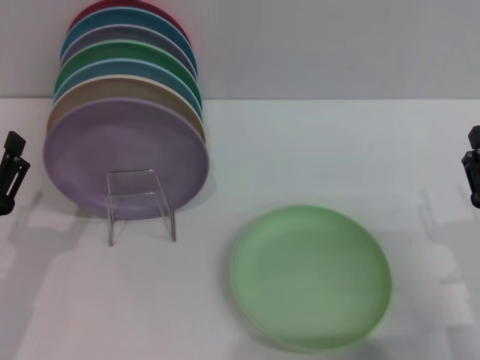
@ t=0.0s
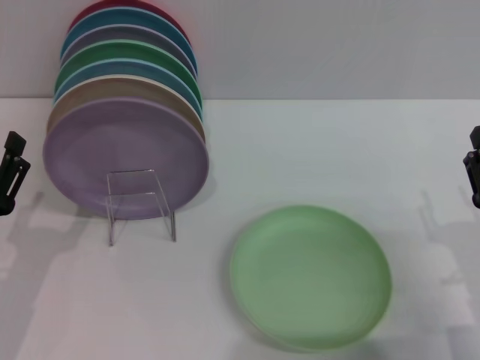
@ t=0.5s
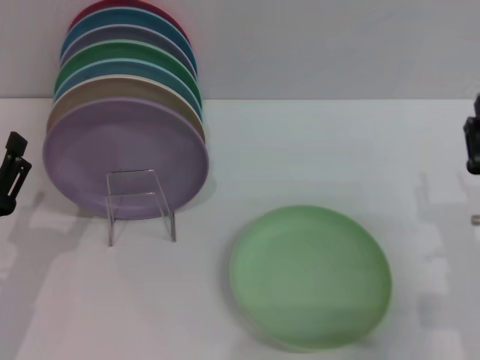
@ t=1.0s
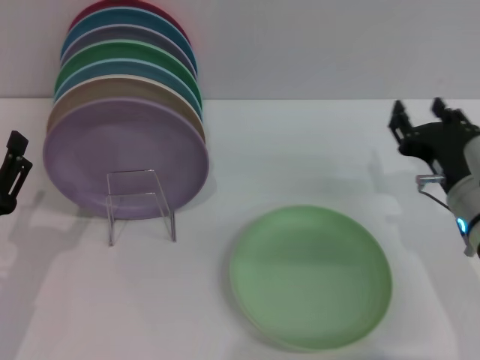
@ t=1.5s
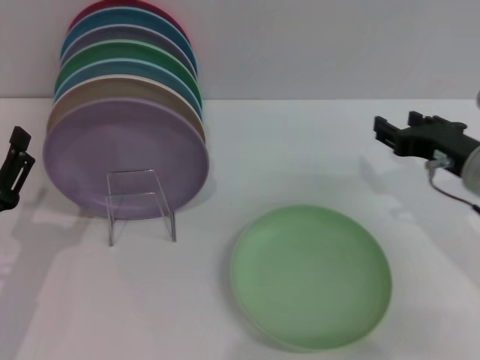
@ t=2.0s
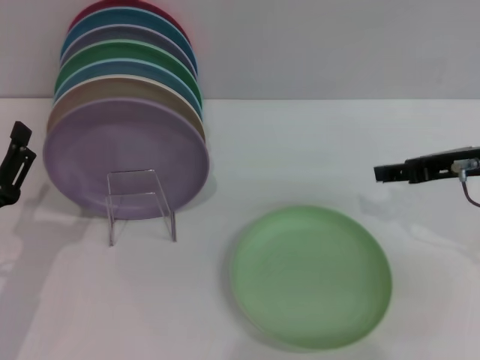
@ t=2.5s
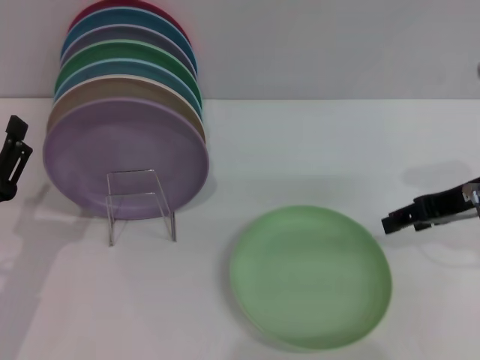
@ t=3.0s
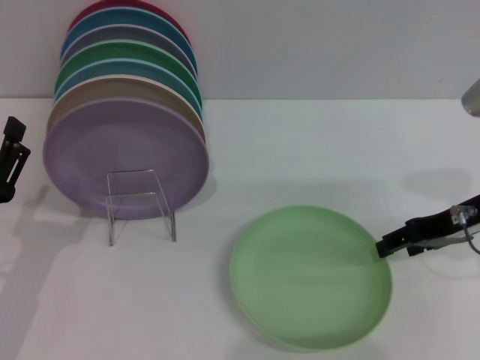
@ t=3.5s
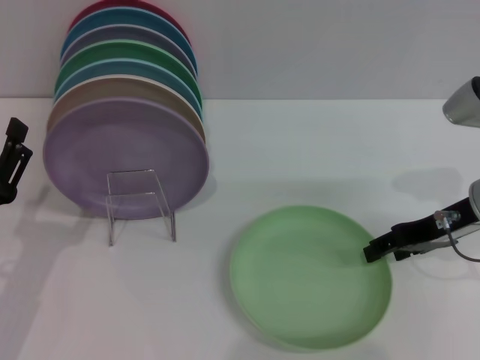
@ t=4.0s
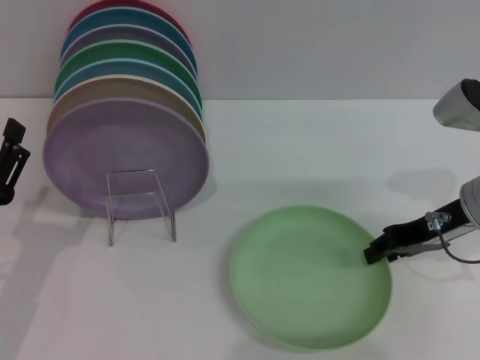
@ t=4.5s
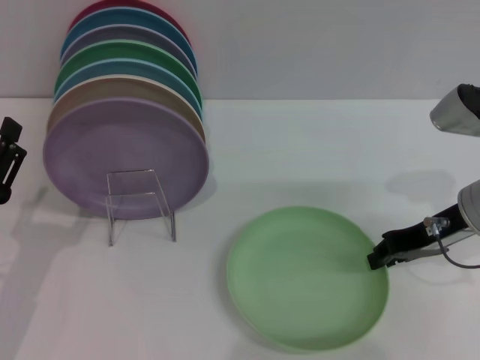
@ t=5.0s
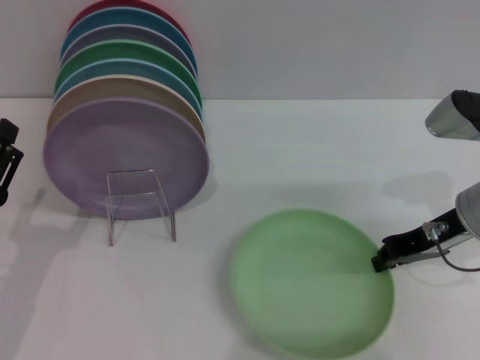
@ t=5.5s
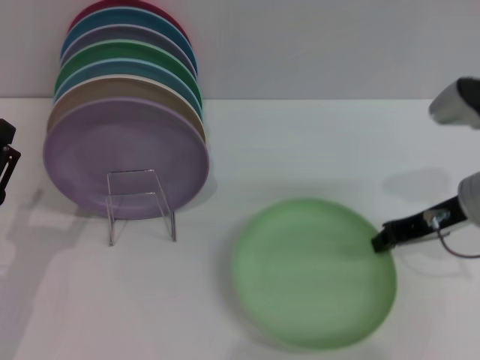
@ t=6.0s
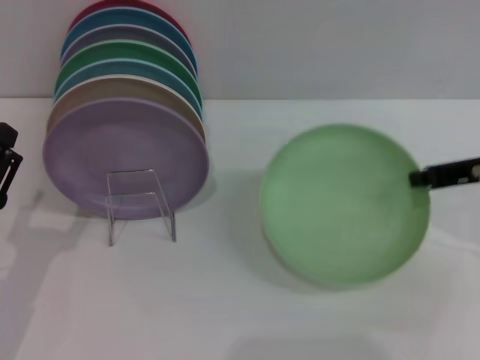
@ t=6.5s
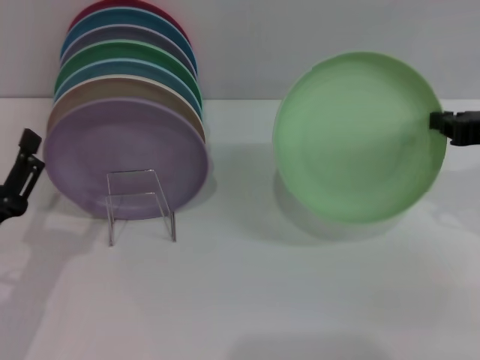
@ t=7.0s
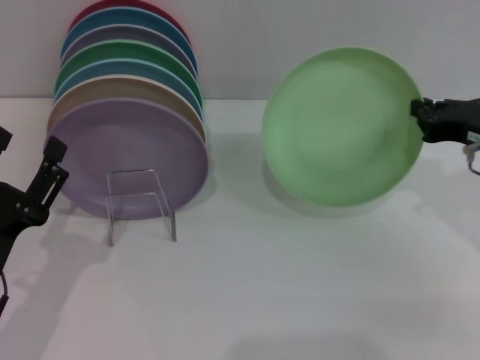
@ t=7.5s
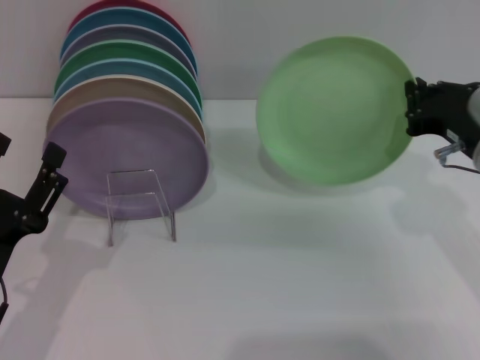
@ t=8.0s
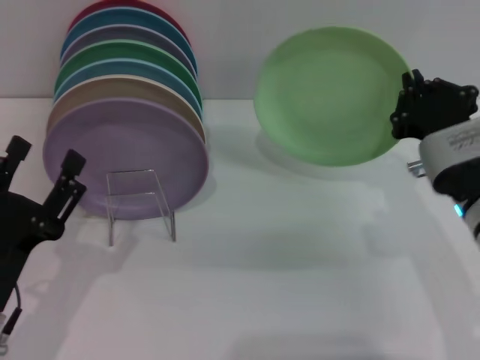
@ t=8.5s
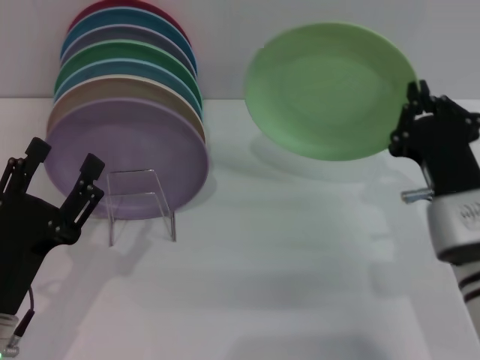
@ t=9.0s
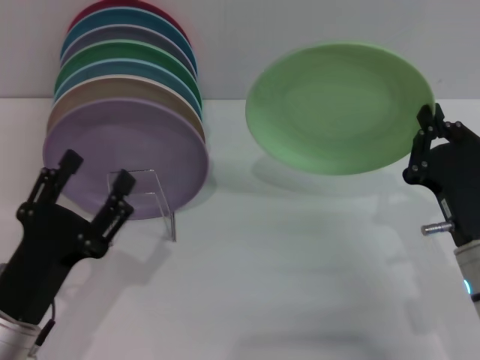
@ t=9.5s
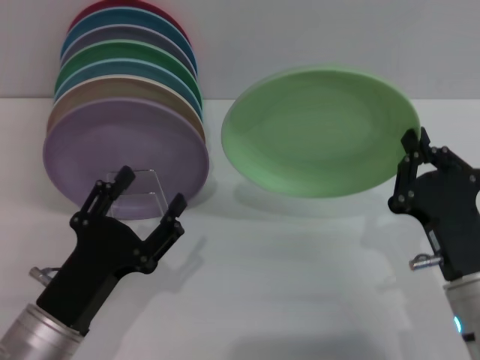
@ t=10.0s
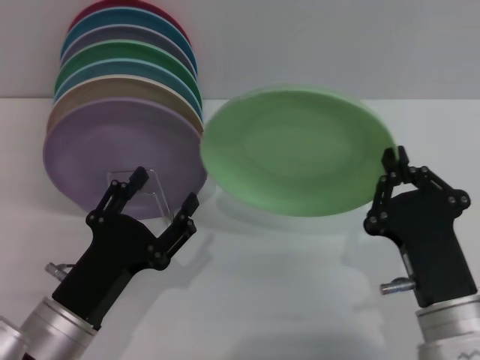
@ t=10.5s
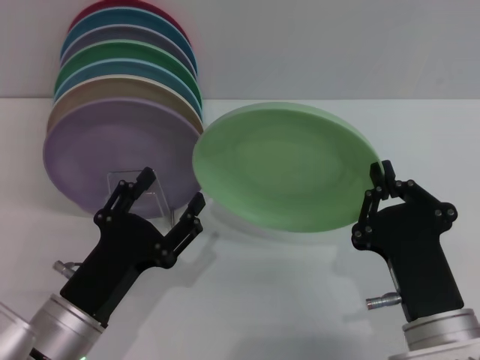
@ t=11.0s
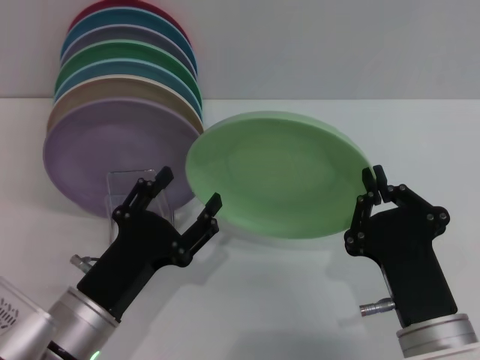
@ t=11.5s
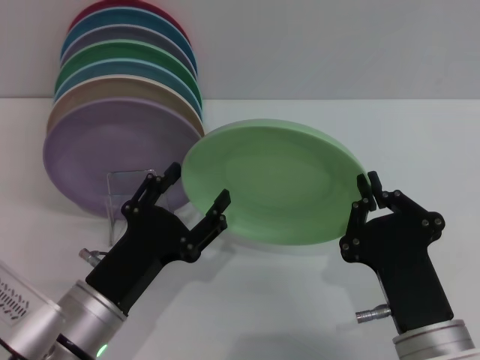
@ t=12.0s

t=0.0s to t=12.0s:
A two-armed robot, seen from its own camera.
Task of the whole recording: Grip the plate with one hand, pass it to the other, then set it on the shelf.
Step, t=0.0s to t=7.0s: Pick up the plate with the right gripper.
t=0.0s to t=2.0s: The right gripper goes approximately 15 cm forward and upward.
t=4.0s to t=6.0s: The right gripper closes.
t=8.0s to t=10.0s: The left gripper goes some 5 cm to the right, while the right gripper travels backward and downward by about 15 cm.
t=10.0s to t=12.0s: The right gripper goes about 10 cm to the left and backward.

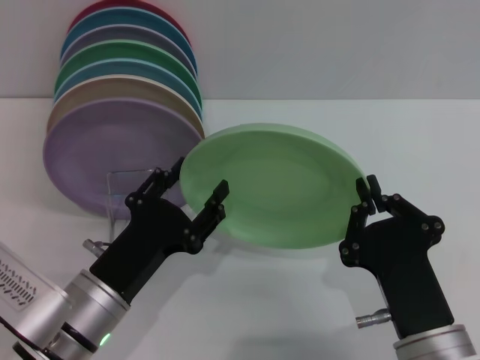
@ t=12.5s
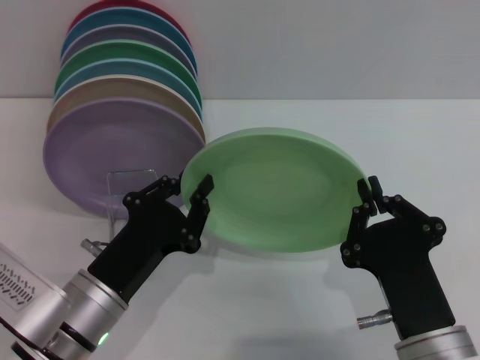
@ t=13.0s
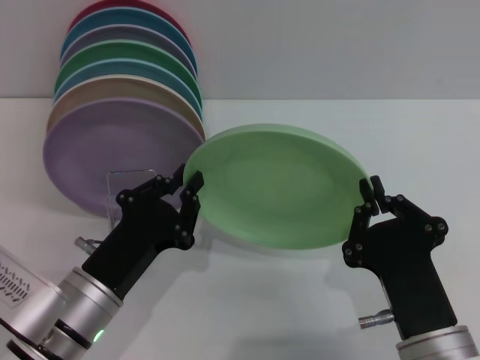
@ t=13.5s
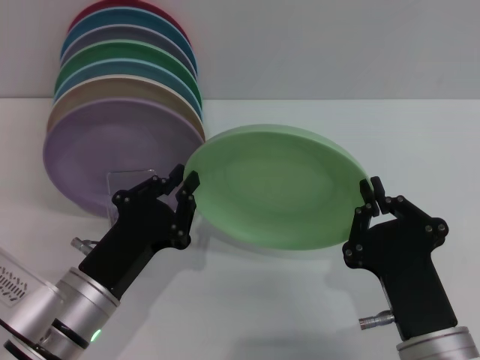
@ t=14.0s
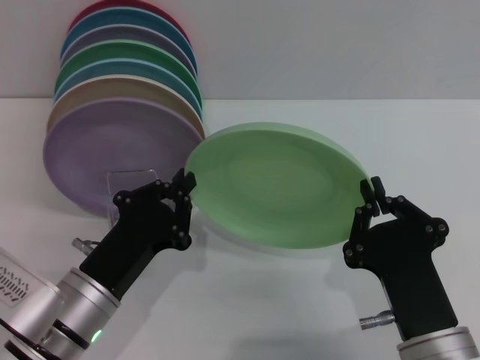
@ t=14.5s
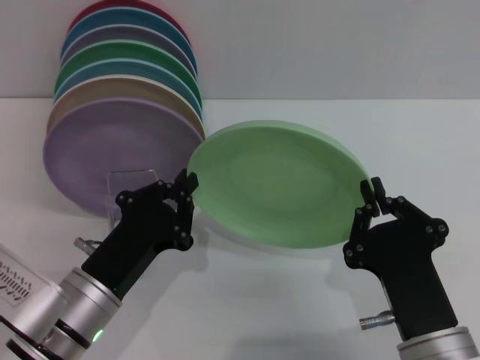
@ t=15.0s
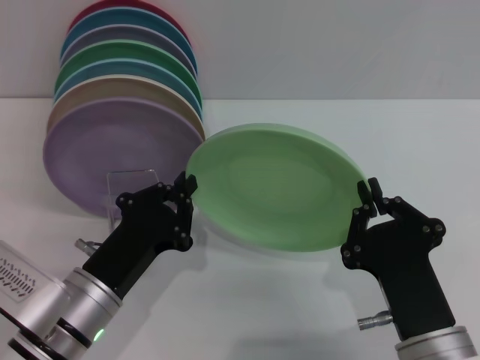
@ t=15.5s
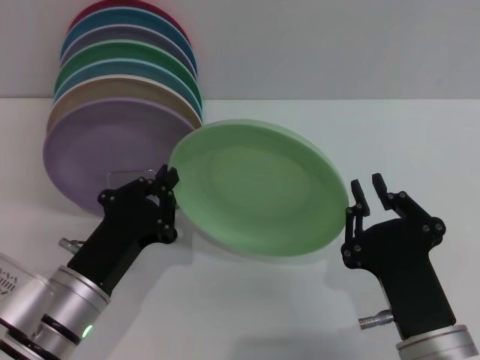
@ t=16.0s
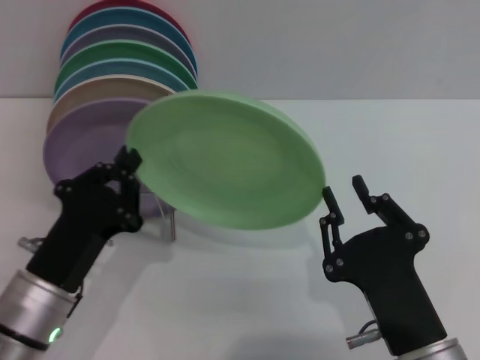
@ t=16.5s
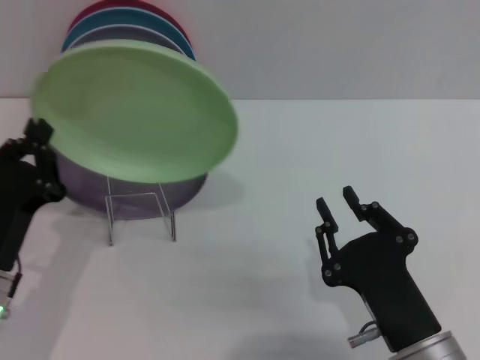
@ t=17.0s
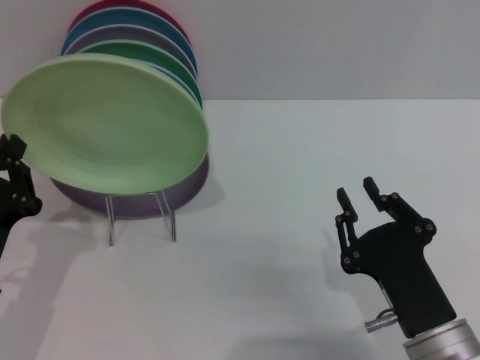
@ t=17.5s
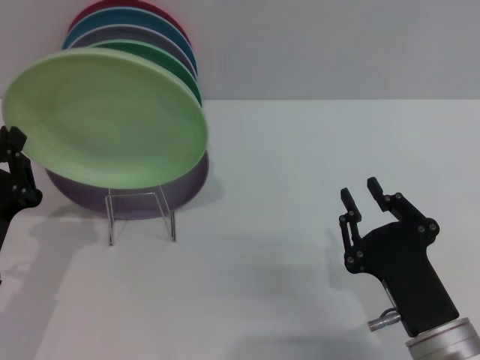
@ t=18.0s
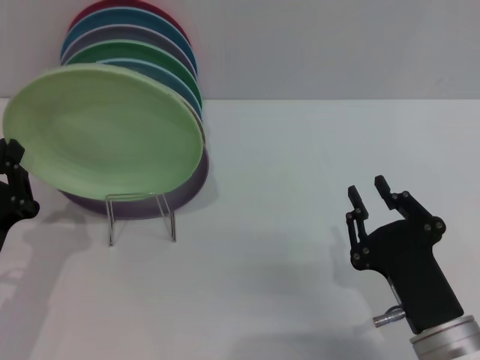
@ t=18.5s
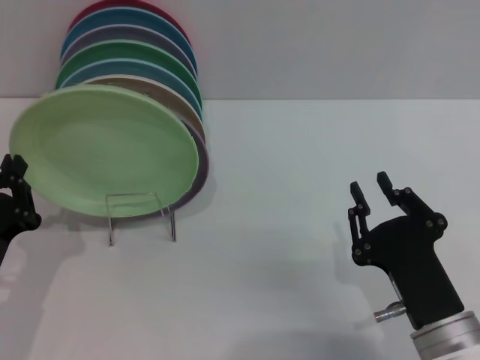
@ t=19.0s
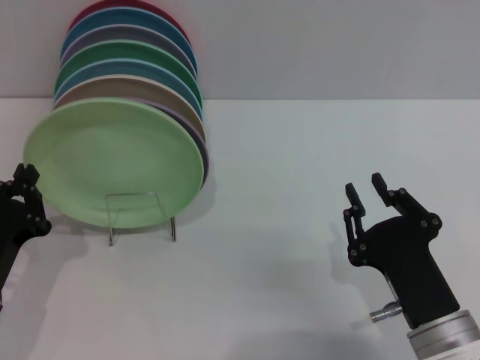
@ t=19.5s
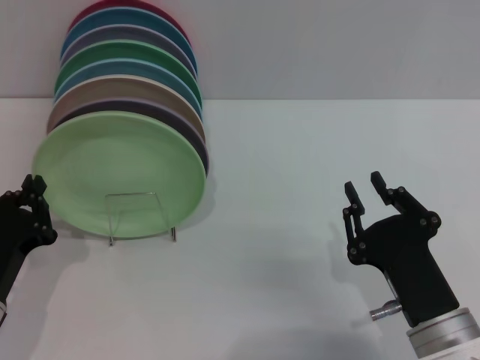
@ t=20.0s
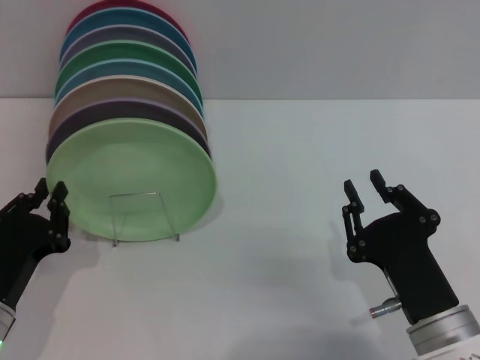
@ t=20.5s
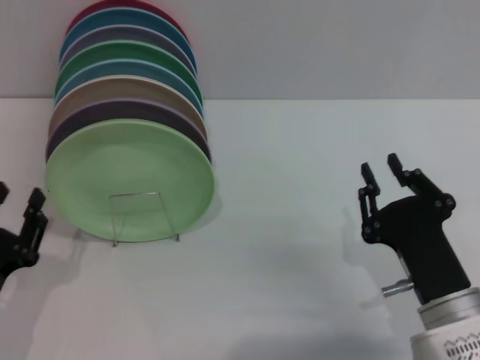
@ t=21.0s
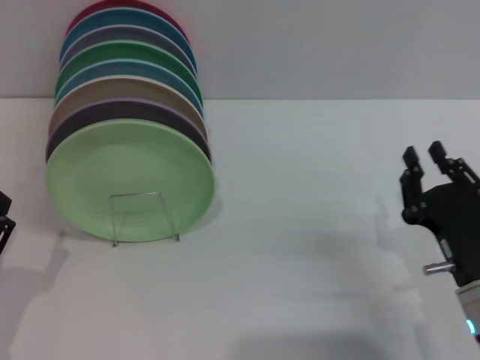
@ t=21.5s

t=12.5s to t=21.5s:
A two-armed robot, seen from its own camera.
Task of the whole recording: Grip the plate with one hand, pass it to the other, then set it on the shelf.
Step, t=12.5s to t=16.0s: Pass the plate from the right gripper to the left gripper.
Step, t=16.5s to t=20.5s: Place the plate on the shelf with the left gripper.
t=12.5s to t=14.5s: The left gripper closes its fingers.
t=14.5s to t=17.0s: The right gripper opens its fingers. The left gripper heads to the left, covering some 5 cm.
t=19.5s to t=21.5s: The left gripper goes about 5 cm backward, and opens. Meanwhile the right gripper heads to the right, covering roughly 5 cm.
